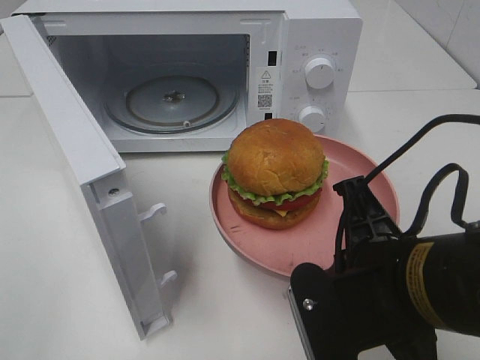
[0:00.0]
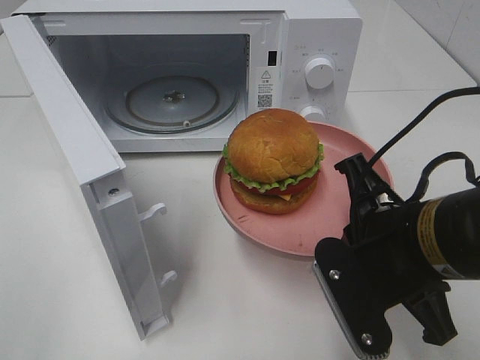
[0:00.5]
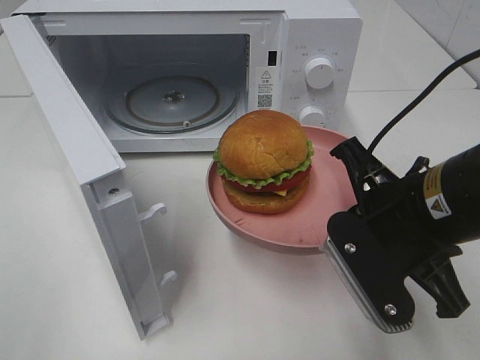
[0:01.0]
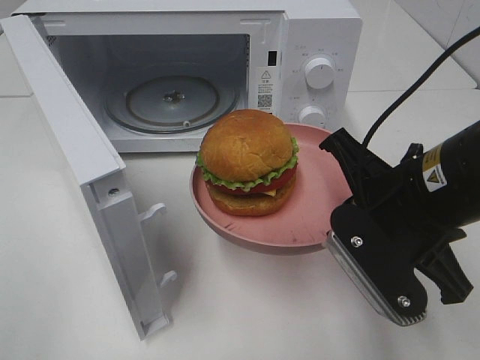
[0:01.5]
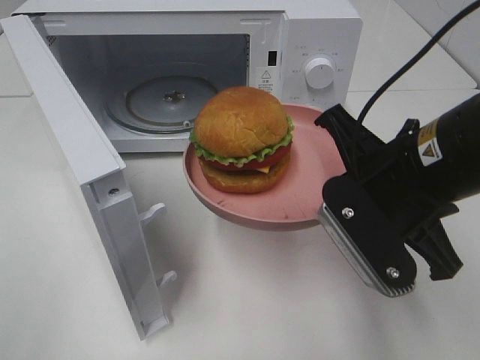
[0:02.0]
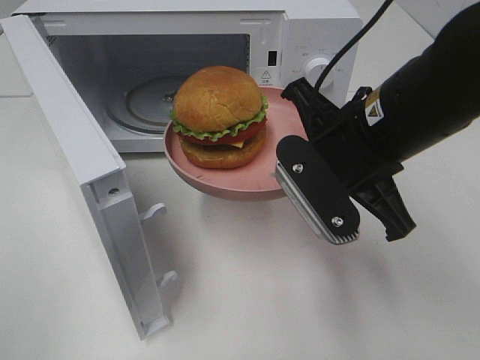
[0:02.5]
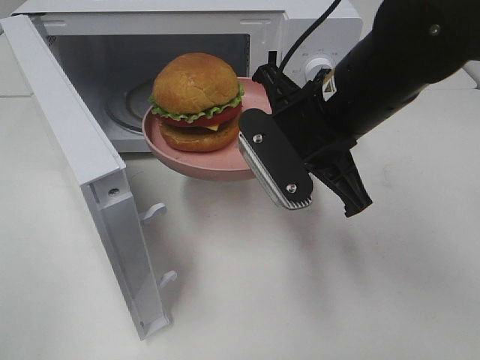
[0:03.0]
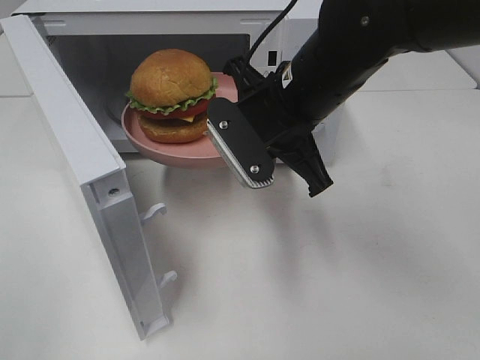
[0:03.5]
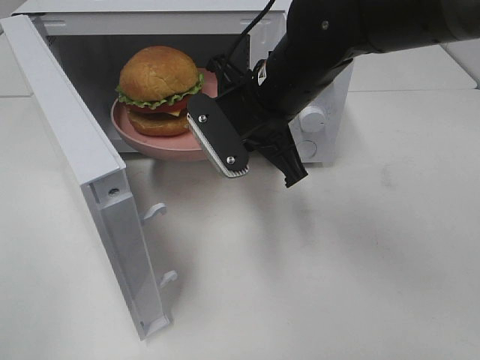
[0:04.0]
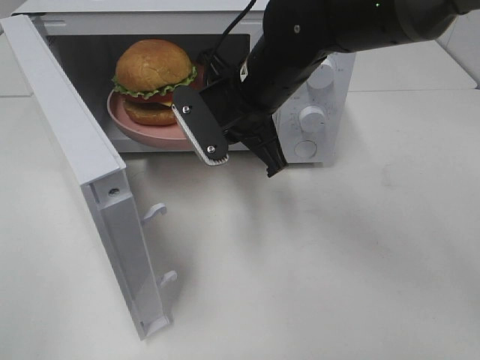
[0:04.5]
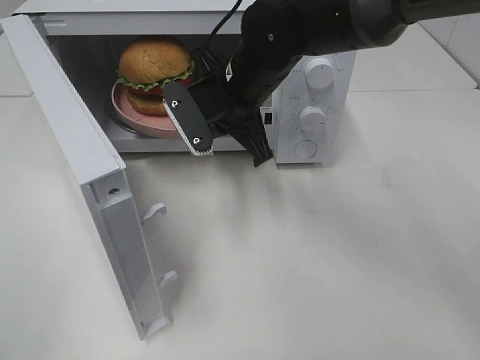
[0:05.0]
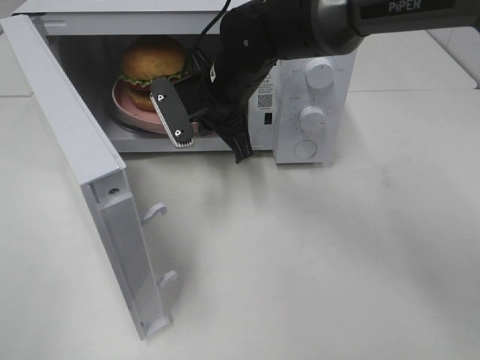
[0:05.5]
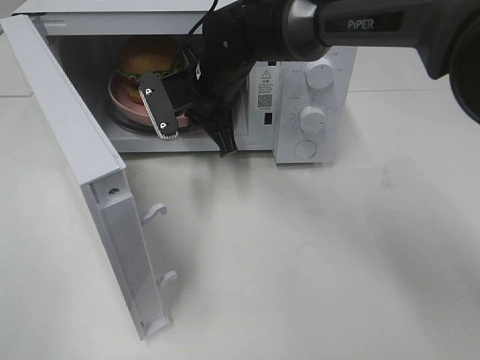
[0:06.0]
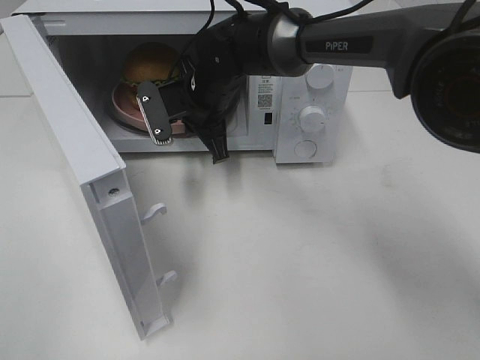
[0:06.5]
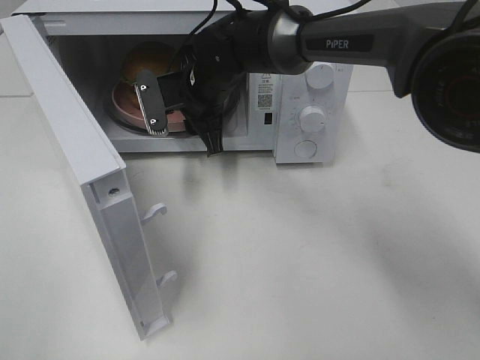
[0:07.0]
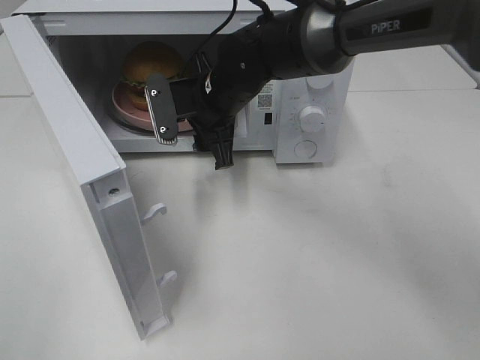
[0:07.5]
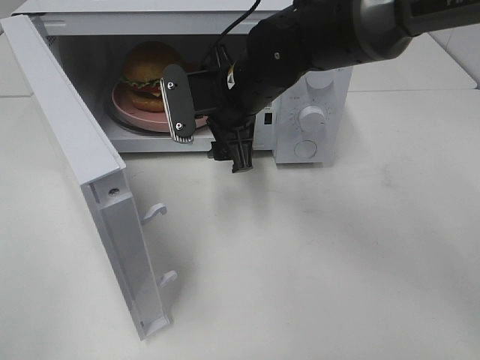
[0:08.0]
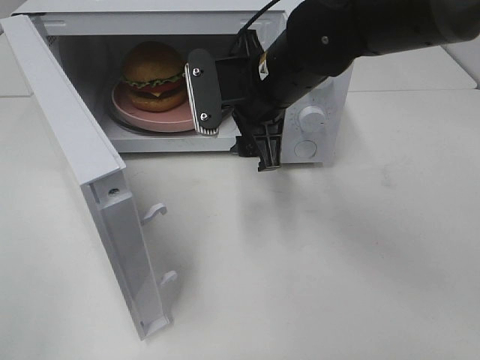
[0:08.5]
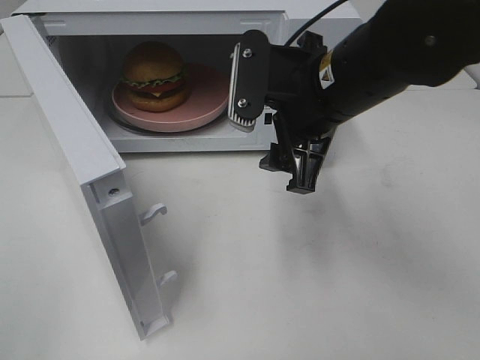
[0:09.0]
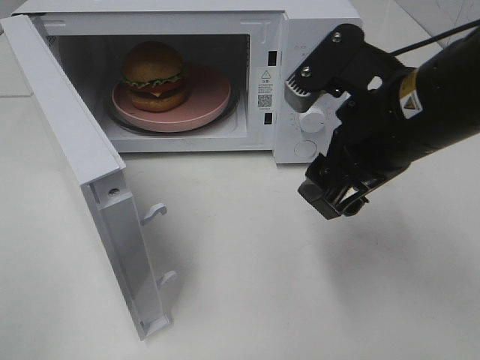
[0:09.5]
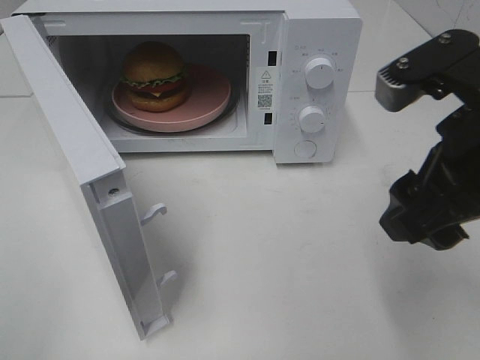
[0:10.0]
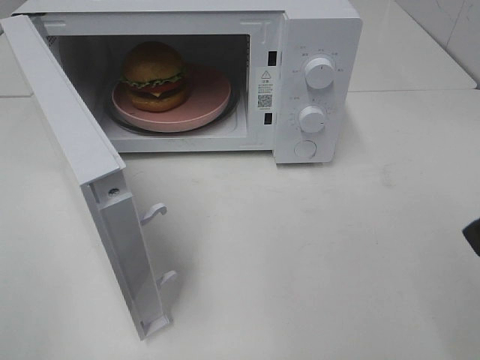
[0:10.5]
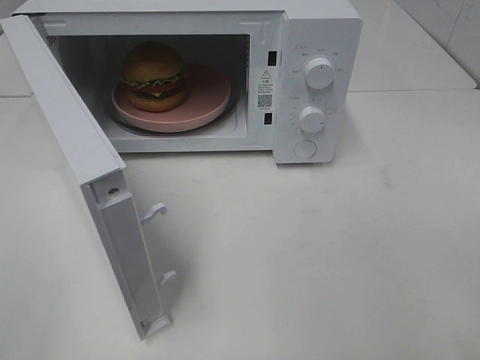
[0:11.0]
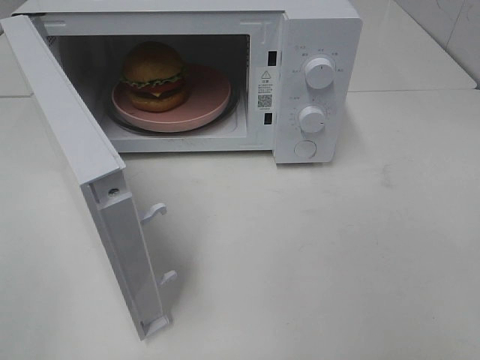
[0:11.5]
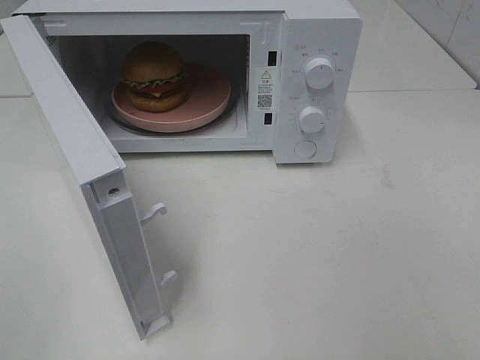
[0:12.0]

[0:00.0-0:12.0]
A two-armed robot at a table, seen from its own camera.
Task of the whole recording: Heat the burger.
Step, 0.0 to 7.0 s: Right hand: place the plate in the microwave.
0.0 to 2.0 s: The right gripper heads forward, covering about 5 cm.
2.0 to 4.0 s: The right gripper moves forward and to the left, approximately 15 cm.
4.0 to 6.0 s: The right gripper is displaced forward and to the left by roughly 10 cm.
6.0 to 8.0 s: The right gripper moves backward, some 5 cm, and opens.
8.0 to 10.0 s: The right gripper shifts approximately 25 cm backward, to the right and upward.
10.0 to 12.0 s: The right gripper moves backward and to the right, approximately 20 cm.

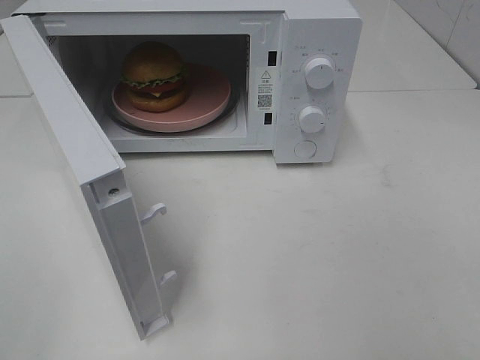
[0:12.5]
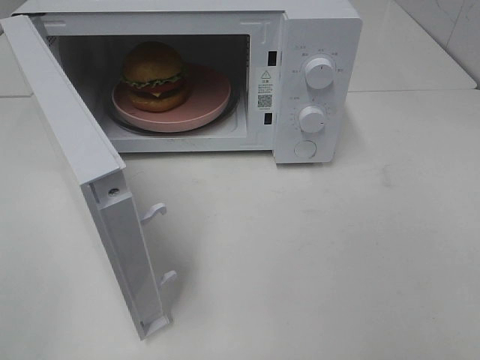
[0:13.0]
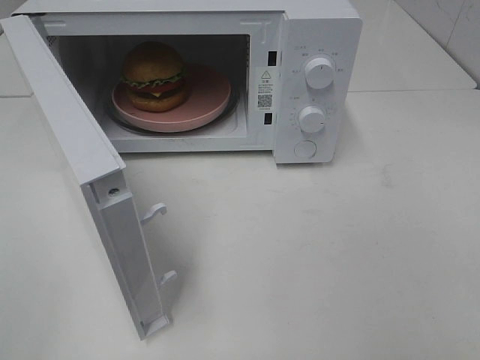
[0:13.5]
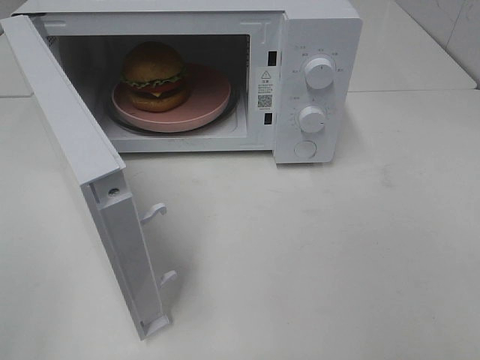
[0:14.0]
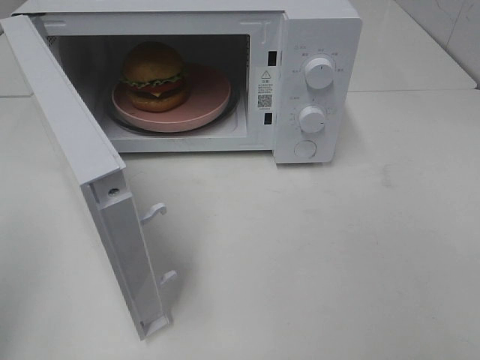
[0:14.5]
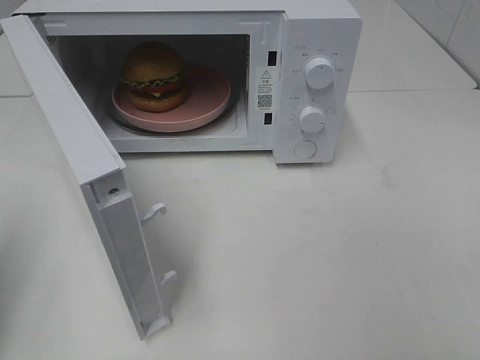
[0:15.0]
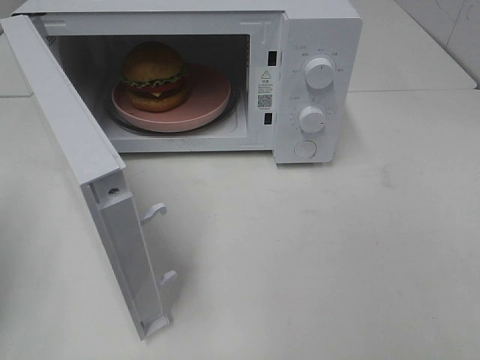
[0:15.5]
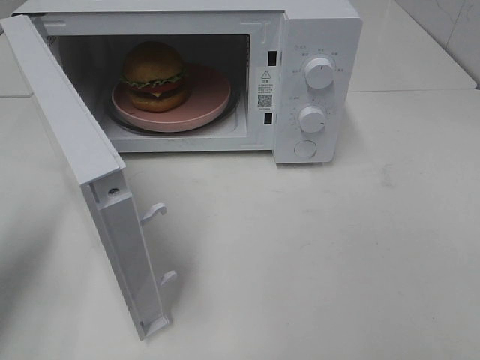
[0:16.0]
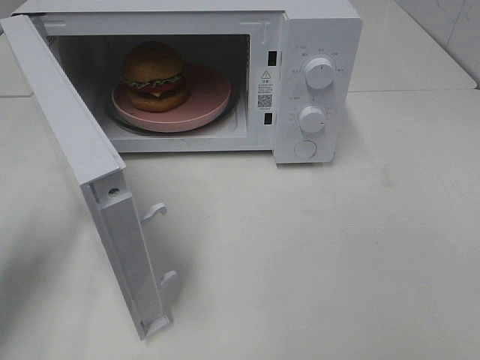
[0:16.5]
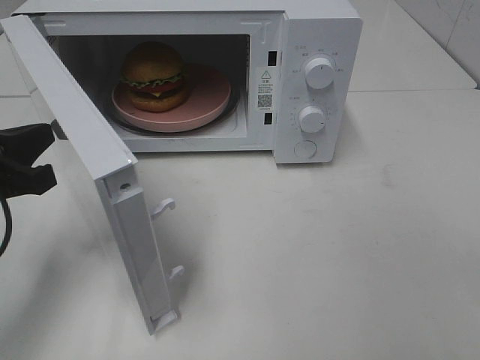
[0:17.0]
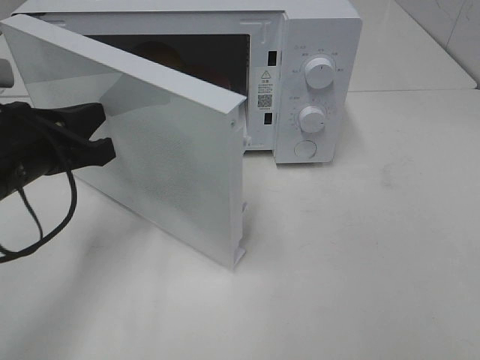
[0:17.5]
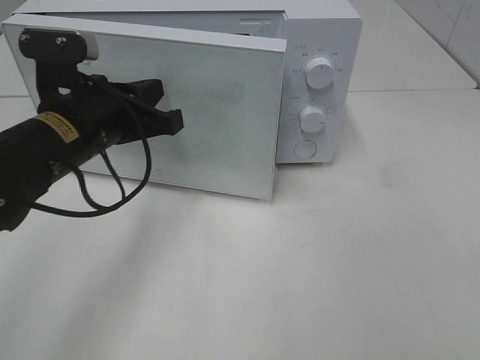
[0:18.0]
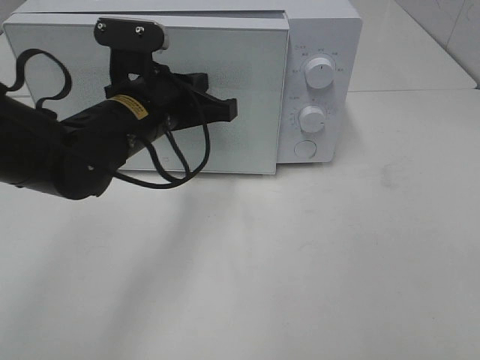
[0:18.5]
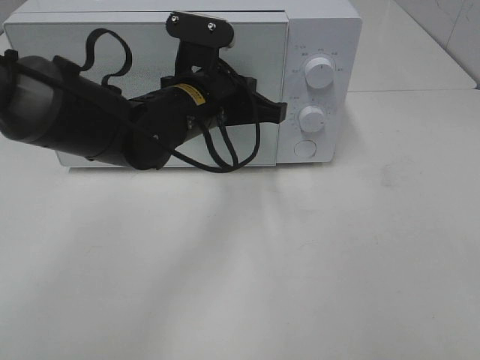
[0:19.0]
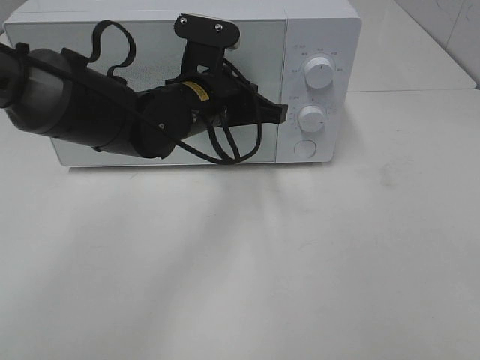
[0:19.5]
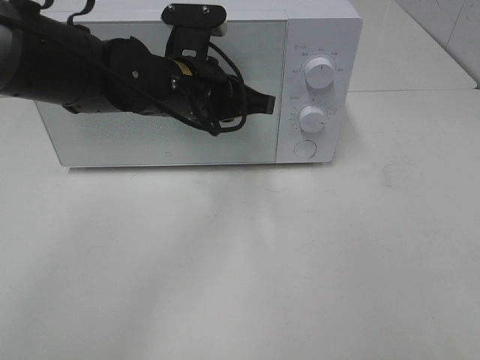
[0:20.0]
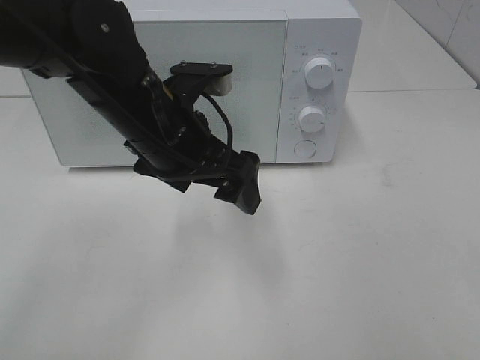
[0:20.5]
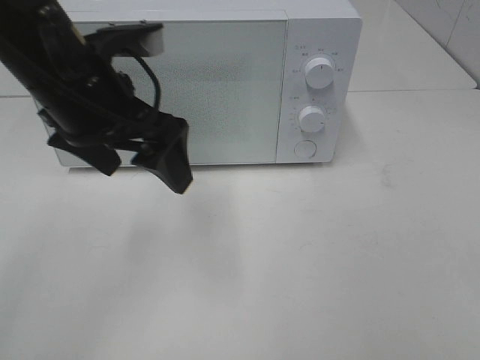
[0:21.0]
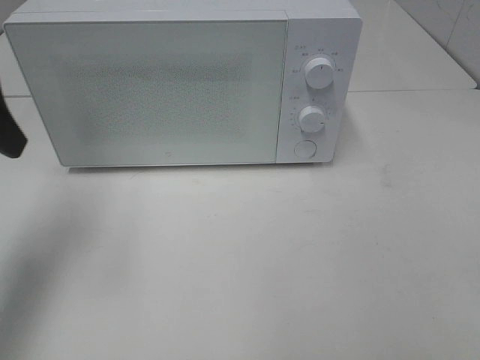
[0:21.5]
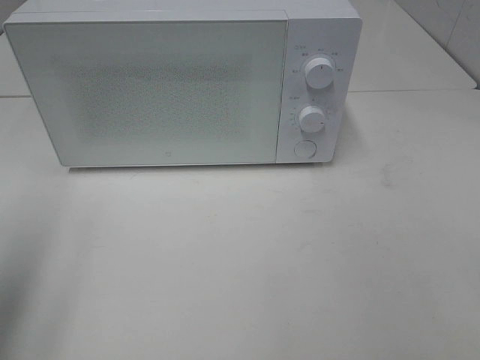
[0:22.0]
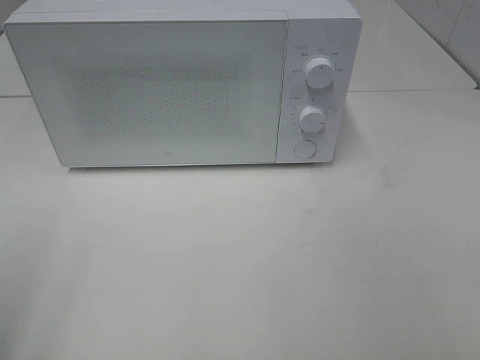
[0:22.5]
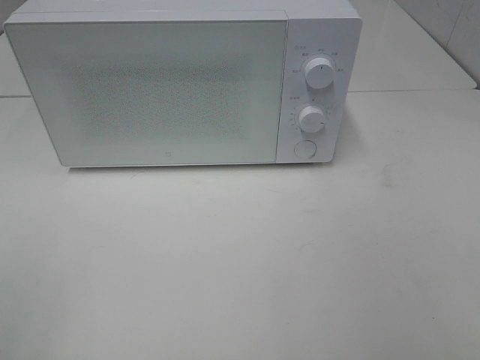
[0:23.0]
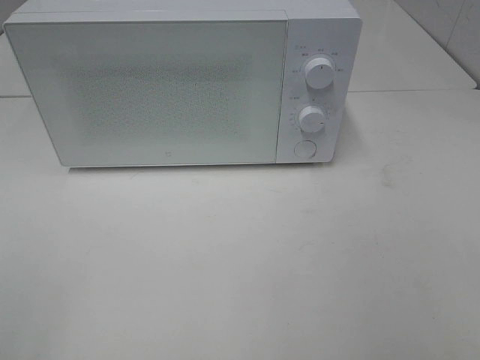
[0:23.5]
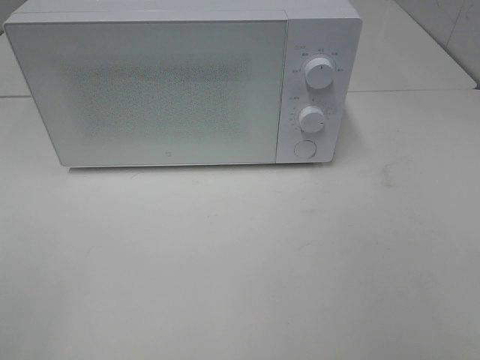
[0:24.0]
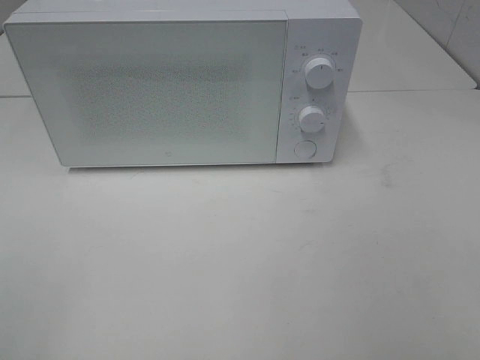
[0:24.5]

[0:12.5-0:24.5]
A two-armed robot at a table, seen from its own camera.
Task of the whole recording: Heat the burger.
Step, 12.5 to 20.0 s: Left hand: close the microwave door.
14.5 to 16.5 s: The left gripper travels forward and downward by some 20 cm.
16.5 to 18.5 s: The left gripper moves to the right and forward, roughly 25 cm.
18.5 to 20.5 s: The left gripper ends up about 5 cm from where it was, and opens.
20.5 to 22.5 s: The left gripper goes some 35 cm to the left and backward.

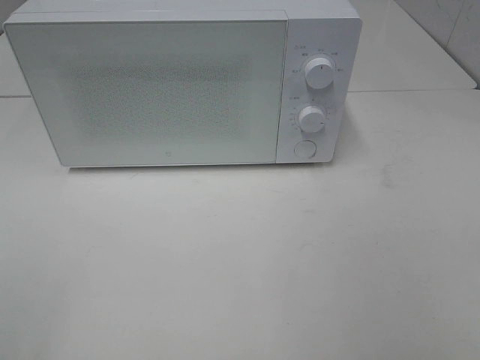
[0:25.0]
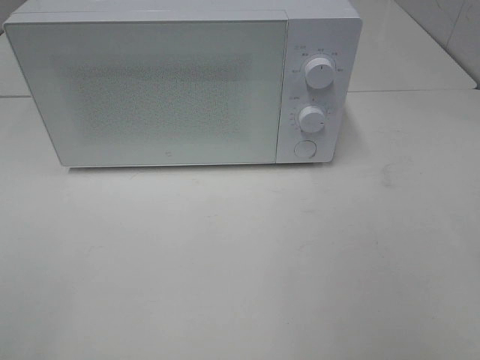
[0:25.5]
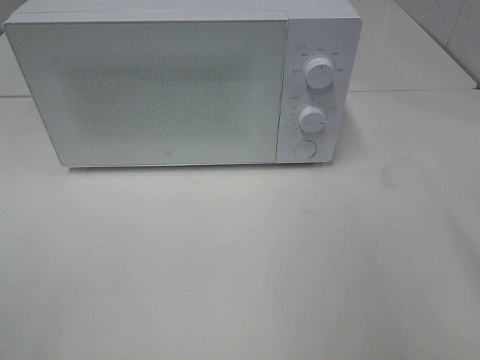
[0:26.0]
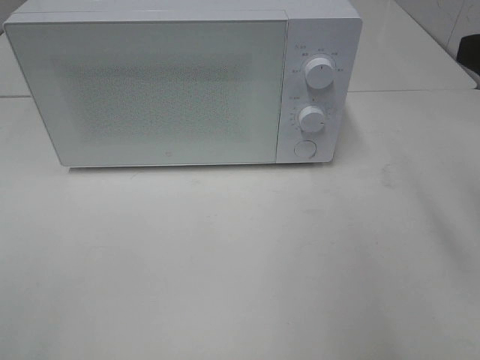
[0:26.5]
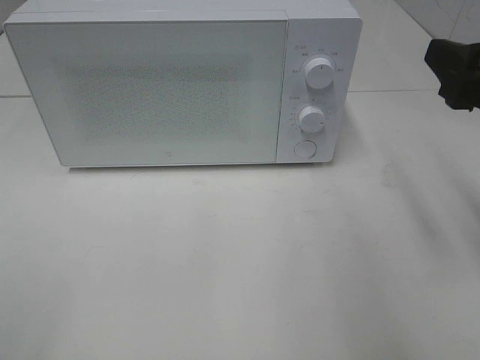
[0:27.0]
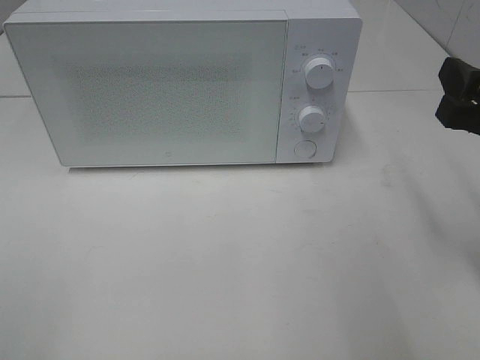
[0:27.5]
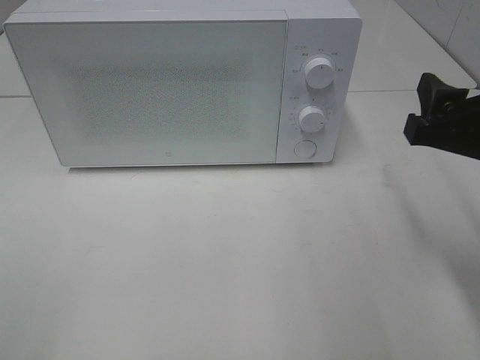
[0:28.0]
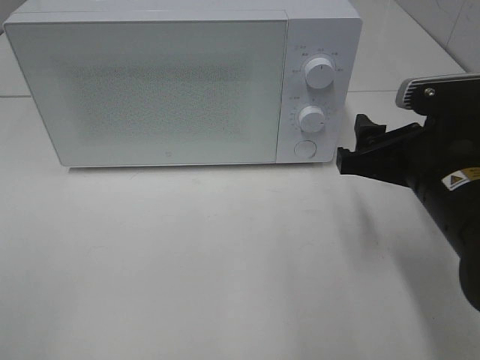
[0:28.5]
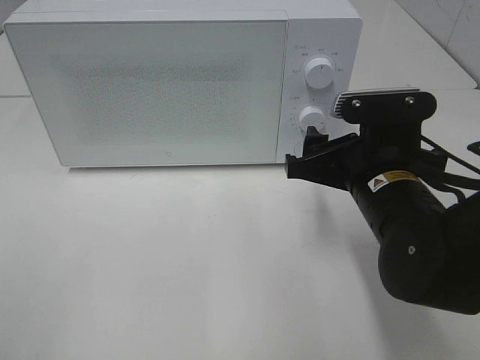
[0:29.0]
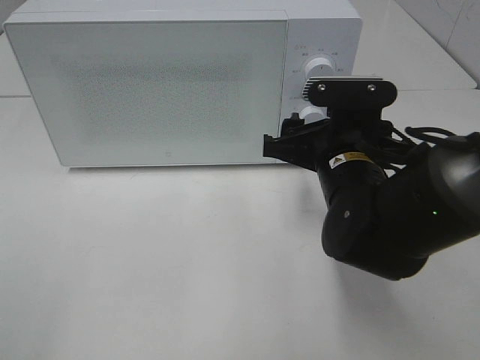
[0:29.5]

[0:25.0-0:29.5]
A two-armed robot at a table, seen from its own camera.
Task of the whole recording: Heat the burger.
25.0 to 27.0 s: The right gripper travels forward by roughly 20 cm.
27.0 to 29.5 s: The right gripper is displaced to the left, downward and forward by some 20 cm.
